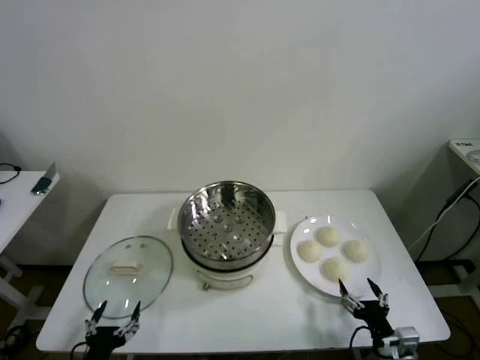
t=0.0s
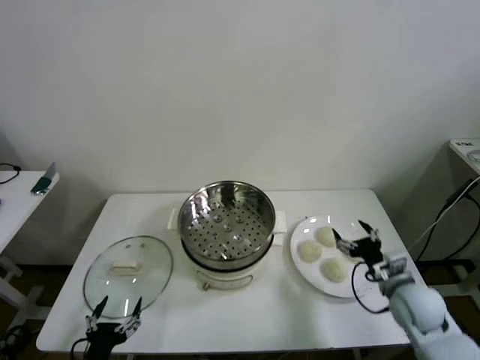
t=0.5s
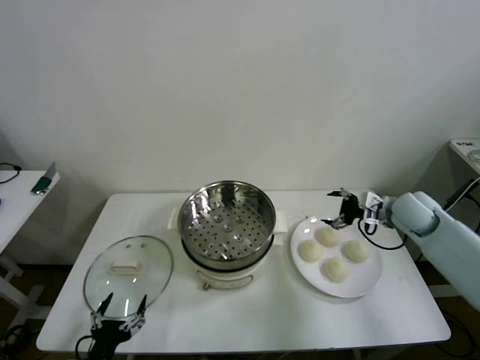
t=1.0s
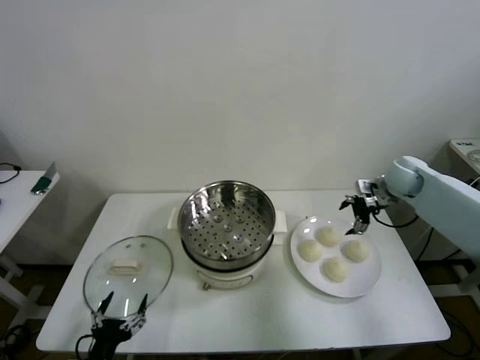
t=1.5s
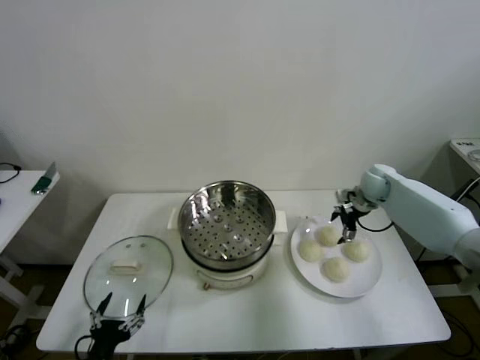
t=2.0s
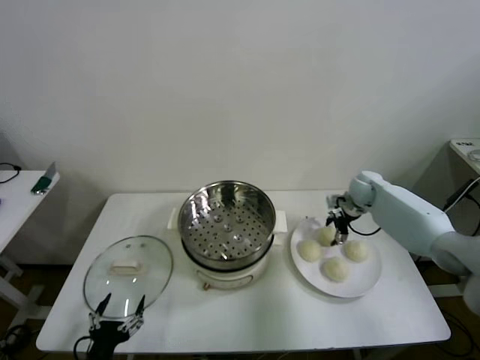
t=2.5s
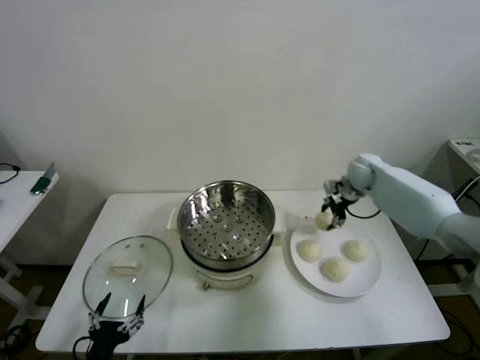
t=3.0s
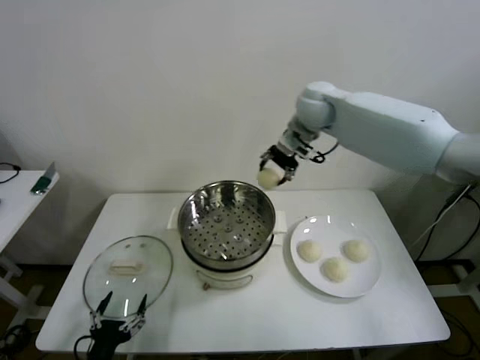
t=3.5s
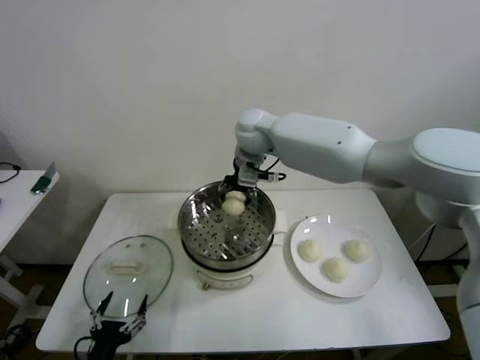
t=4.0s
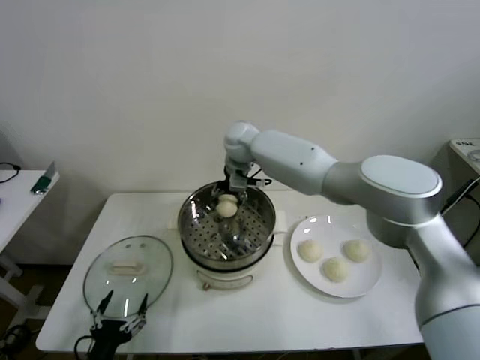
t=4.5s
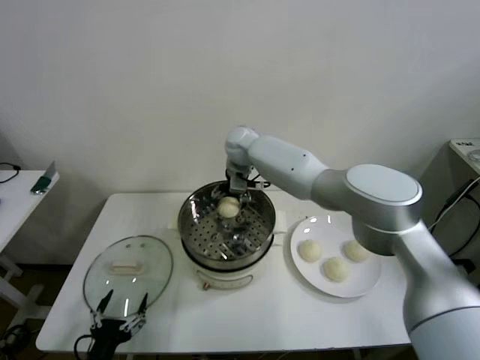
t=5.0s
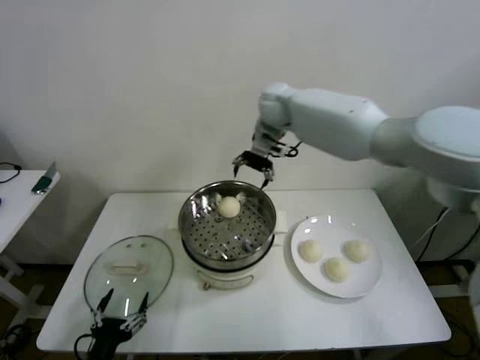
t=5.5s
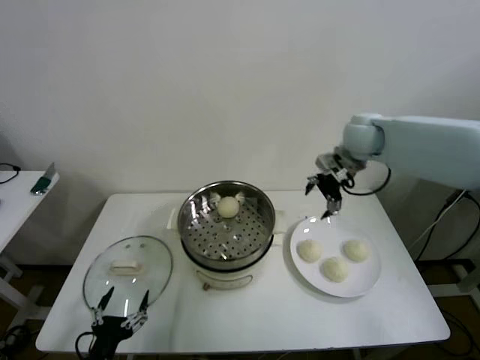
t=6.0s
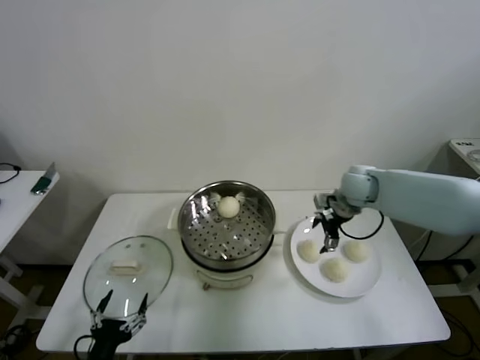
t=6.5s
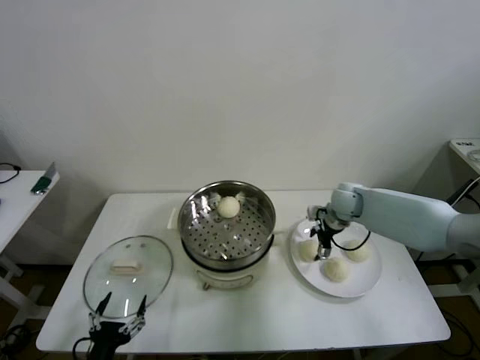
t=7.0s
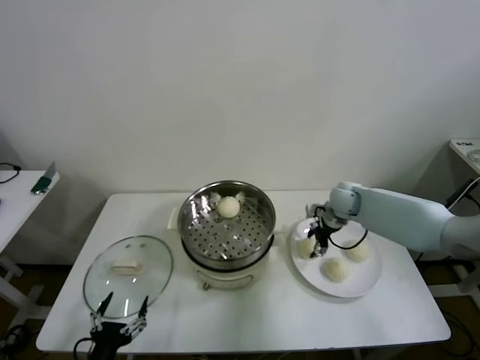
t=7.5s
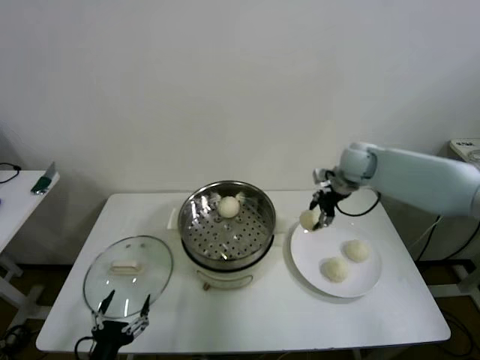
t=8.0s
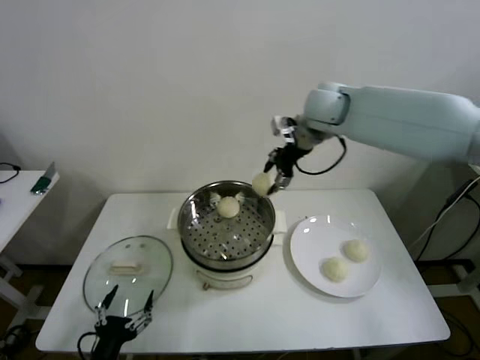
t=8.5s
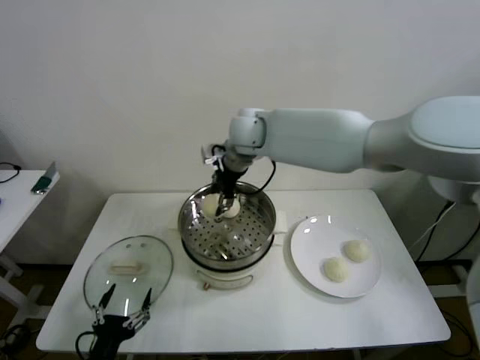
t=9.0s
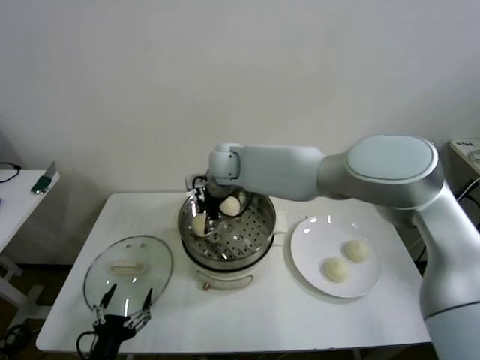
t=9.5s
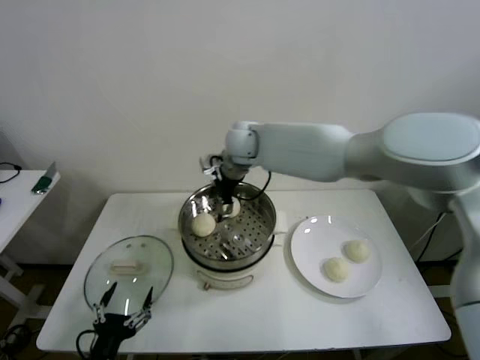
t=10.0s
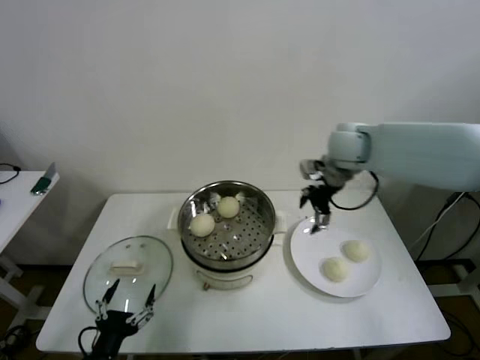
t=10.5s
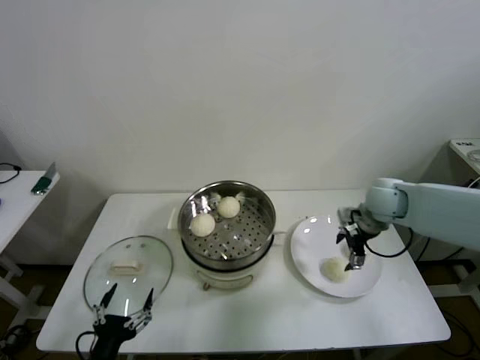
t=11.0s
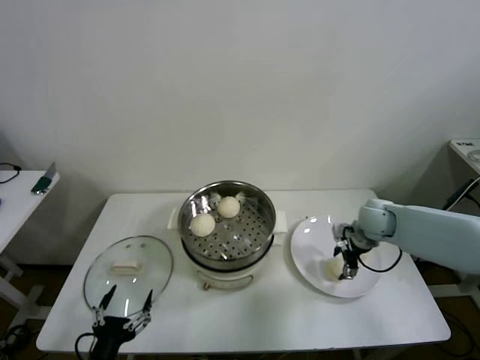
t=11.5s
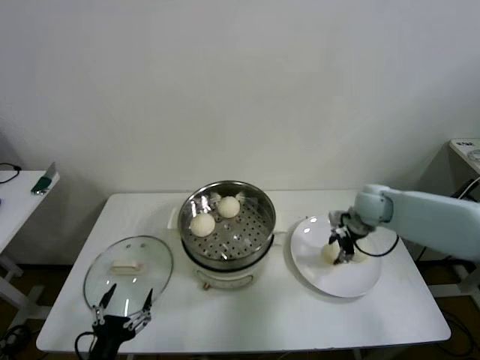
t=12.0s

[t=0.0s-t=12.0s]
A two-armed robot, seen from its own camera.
Step, t=0.0s to t=2.5s: Grasp the baozi in the plate with right gripper.
Step, t=3.0s to t=4.5s: Place the baozi on the steamer with right gripper.
Step, t=5.5s to t=7.0s: Grasp the baozi in the plate with right gripper.
Step, t=7.5s to t=9.5s: Place the baozi on the steamer with right gripper.
Step, t=10.0s to t=11.5s: Grasp the baozi in the plate with right gripper.
t=2.0s to t=4.0s: The right gripper goes some 40 cm to the left and upward, and closes up.
t=4.0s to t=6.0s: The right gripper shifts approximately 25 cm to the right, and opens its fingers.
t=6.0s to t=8.0s: The right gripper reaches roughly 20 cm downward, then returns, and closes up.
t=8.0s to t=10.0s: The right gripper shifts about 25 cm to the left, and opens.
t=10.0s to t=12.0s: The right gripper travels to the right and downward by about 35 cm, and closes up.

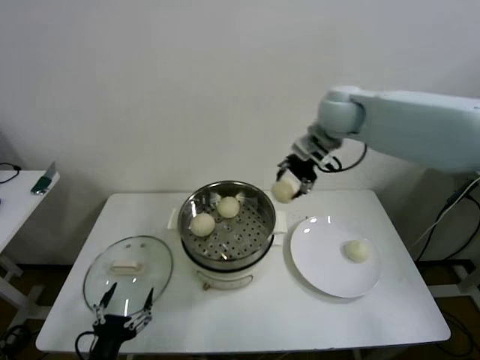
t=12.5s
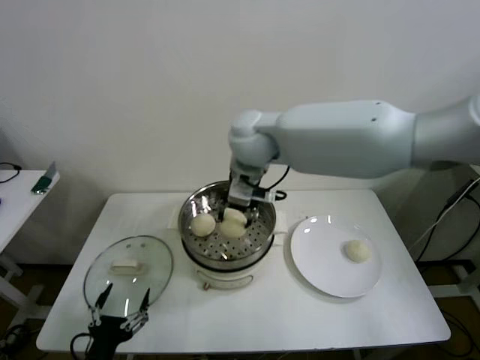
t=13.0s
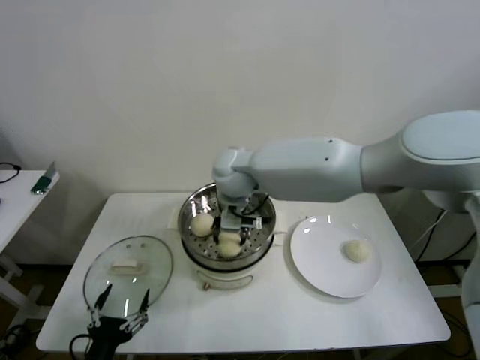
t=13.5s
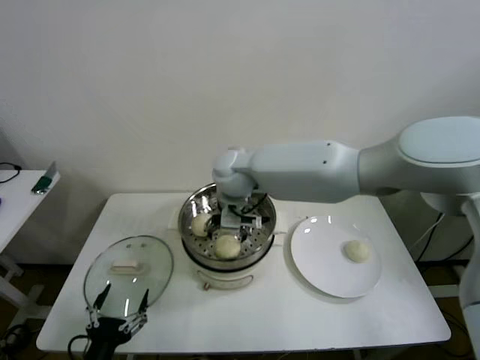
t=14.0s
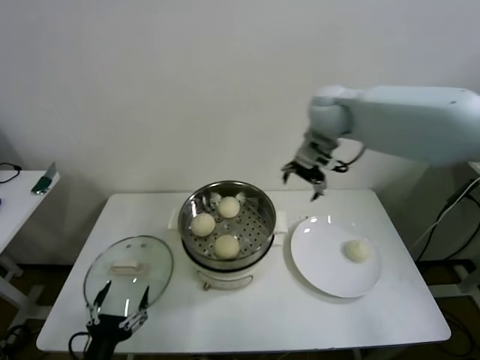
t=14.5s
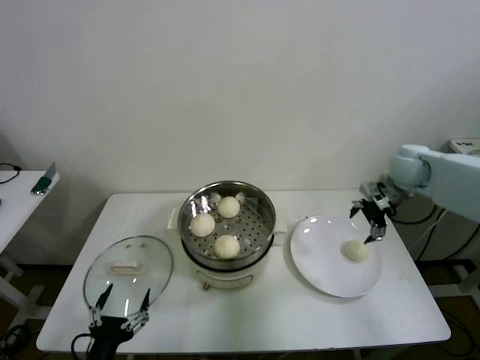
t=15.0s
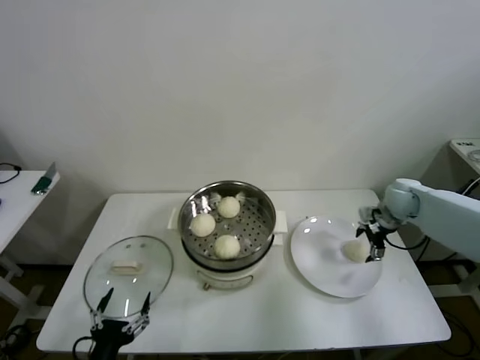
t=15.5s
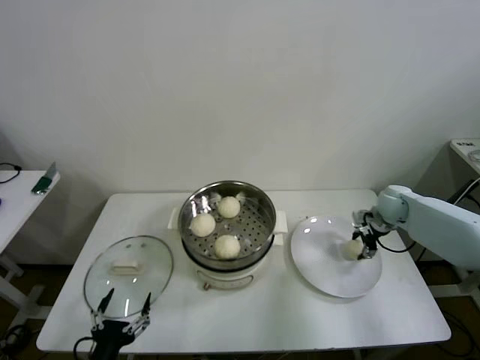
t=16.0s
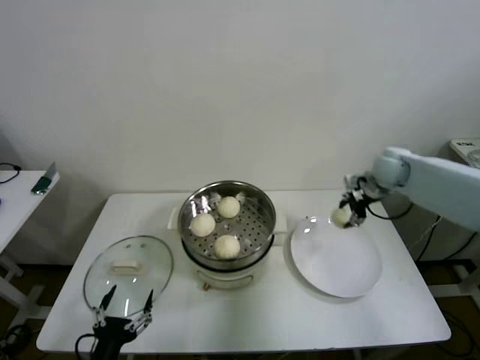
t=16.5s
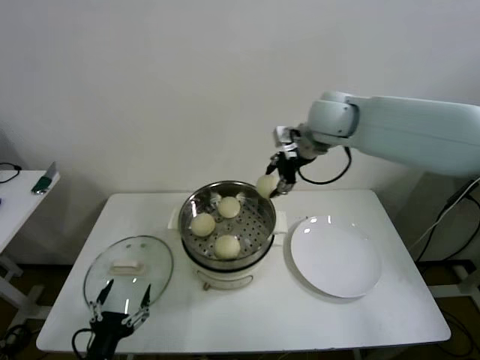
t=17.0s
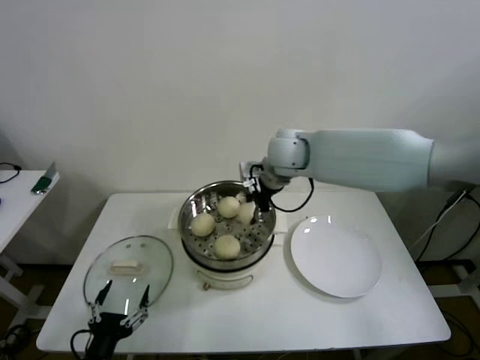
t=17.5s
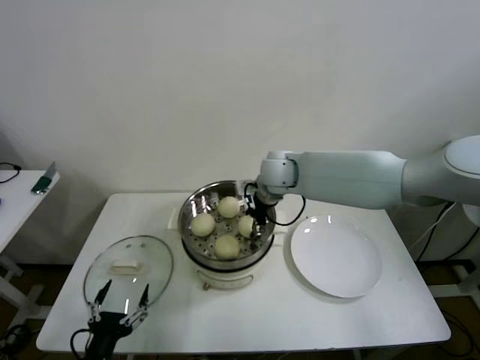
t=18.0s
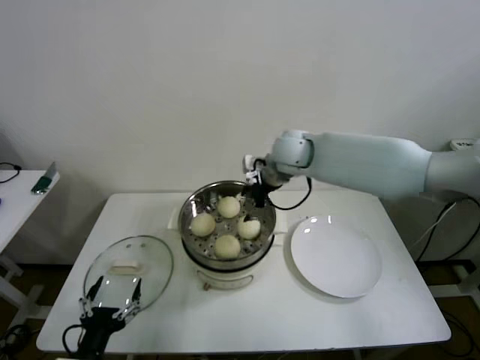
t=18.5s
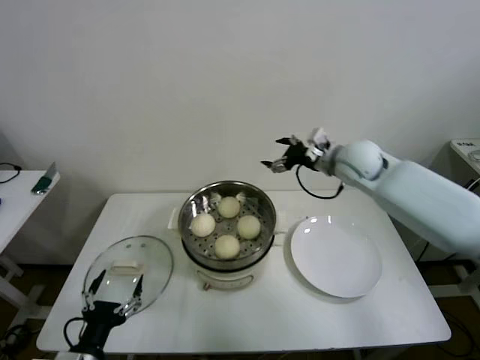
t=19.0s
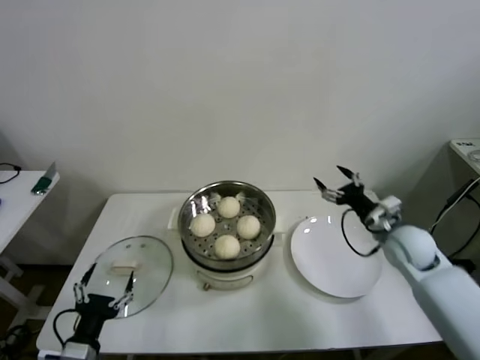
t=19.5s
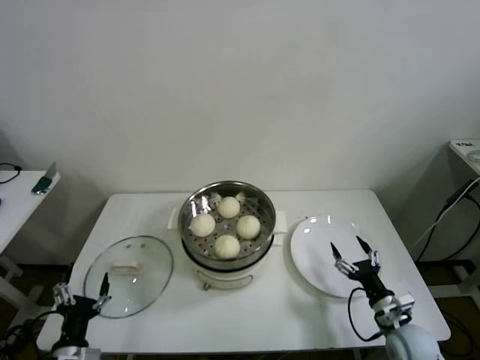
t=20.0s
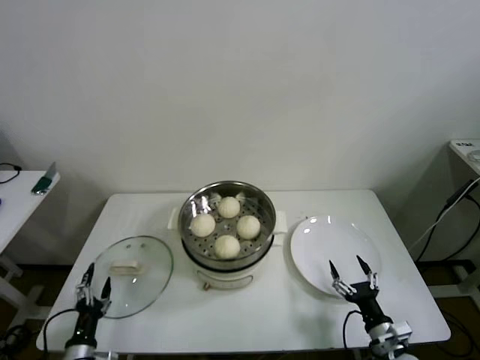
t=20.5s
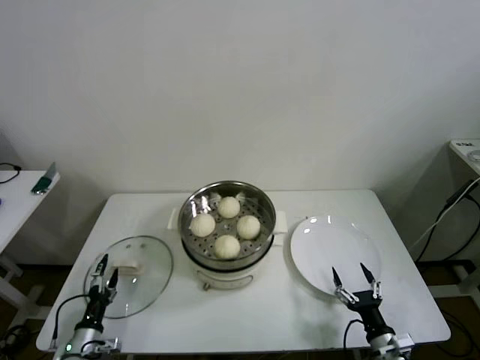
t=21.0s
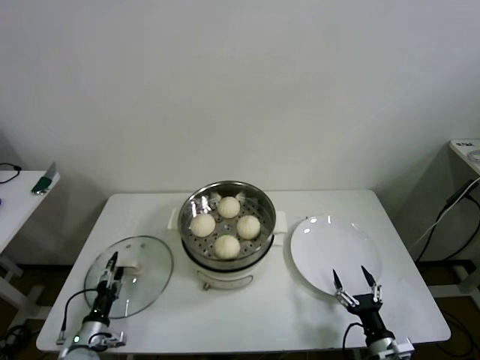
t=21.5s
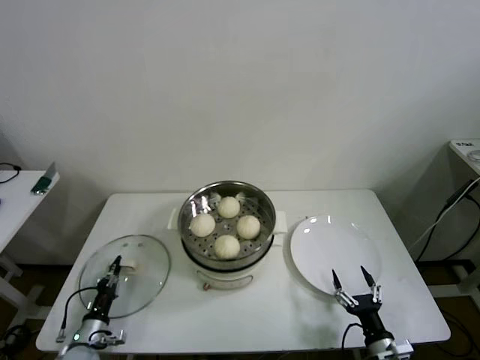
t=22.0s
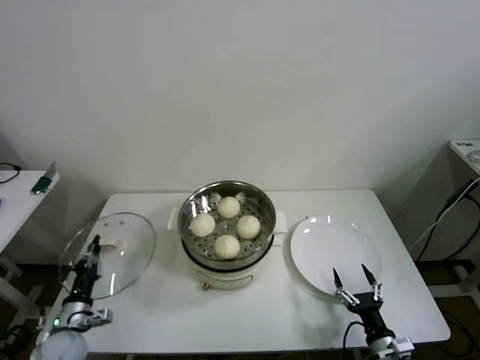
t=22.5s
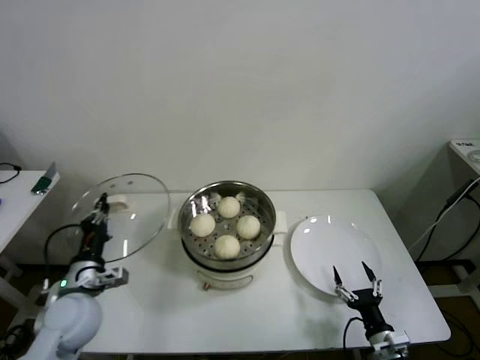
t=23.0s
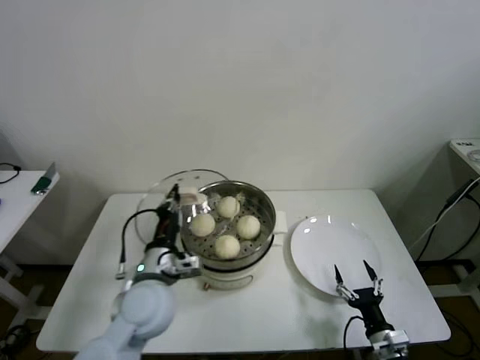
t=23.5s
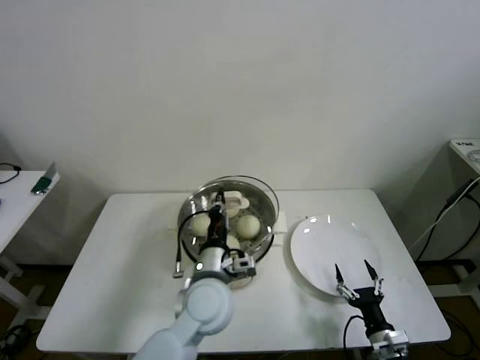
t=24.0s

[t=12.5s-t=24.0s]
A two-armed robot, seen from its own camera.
Step, t=12.5s to t=13.5s: Place the baozi on the steamer with right gripper.
Step, t=14.0s to t=15.5s: Grasp the baozi in the plate with right gripper.
Step, t=16.0s to t=18.0s: Place the baozi on the steamer with right gripper.
Step, t=18.5s to t=22.0s: Grasp the pot lid with left gripper.
t=12.5s to t=14.5s: The right gripper reaches approximately 20 cm to the left, then returns, and opens its fingers.
t=14.5s to t=16.5s: The right gripper heads to the right and downward, covering approximately 25 cm, and closes its fingers.
t=16.5s to t=18.5s: The right gripper goes approximately 25 cm to the left, and opens its fingers.
t=18.5s to t=20.0s: The left gripper ends up about 5 cm from where it was; the right gripper travels downward, backward and to the right by approximately 50 cm.
t=20.0s to t=22.0s: The left gripper travels downward, forward and to the left by some 20 cm, and closes up; the right gripper shifts about 10 cm backward.
t=22.0s to t=24.0s: The left gripper shifts roughly 40 cm to the right and upward.

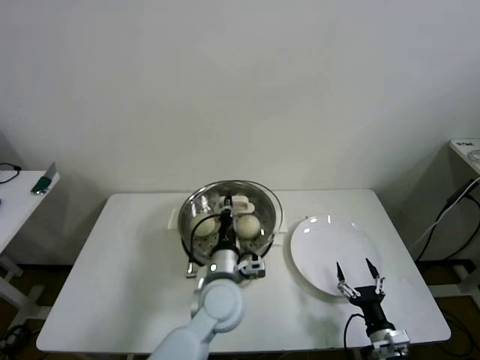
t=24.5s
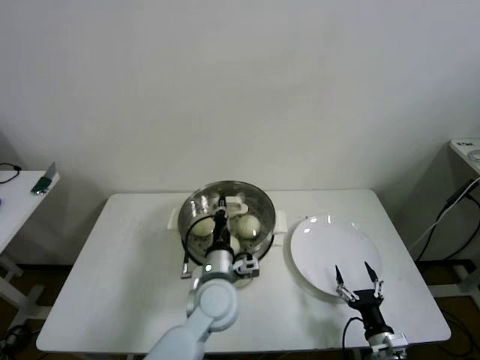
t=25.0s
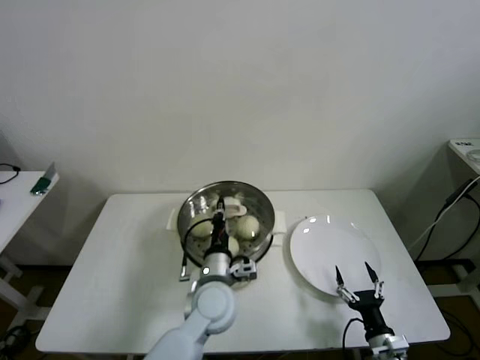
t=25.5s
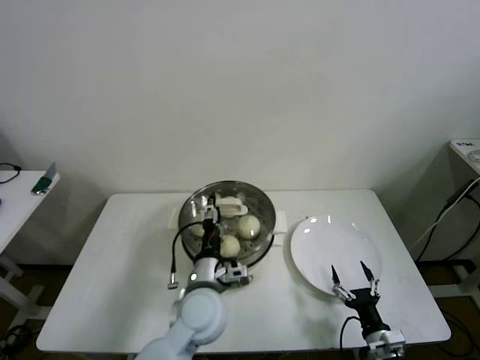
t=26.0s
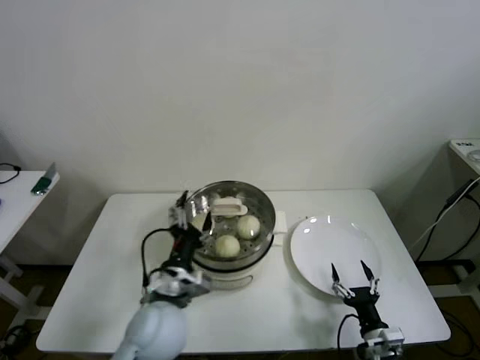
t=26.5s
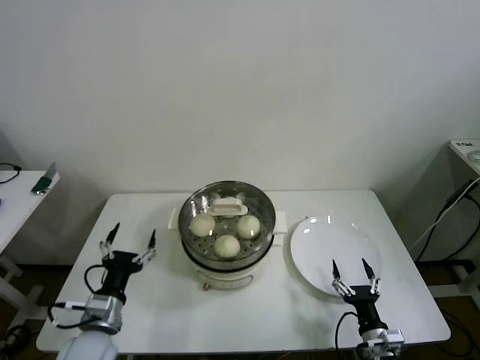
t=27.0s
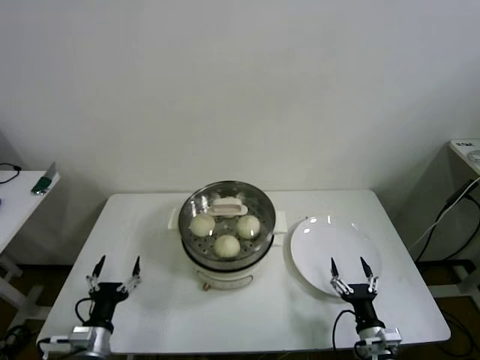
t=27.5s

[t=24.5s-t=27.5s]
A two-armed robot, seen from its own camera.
t=24.5s to t=26.0s: The left gripper opens up.
t=26.0s to t=27.5s: The left gripper goes approximately 25 cm to the left and backward, and opens up.
